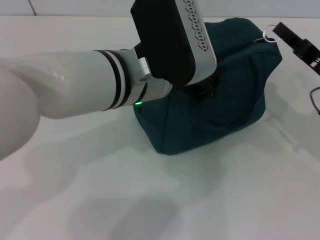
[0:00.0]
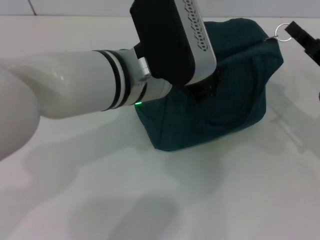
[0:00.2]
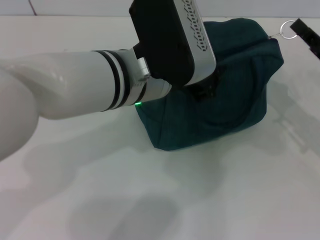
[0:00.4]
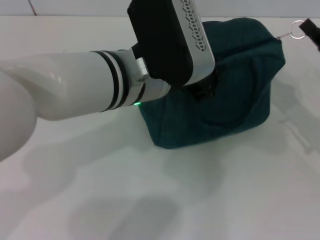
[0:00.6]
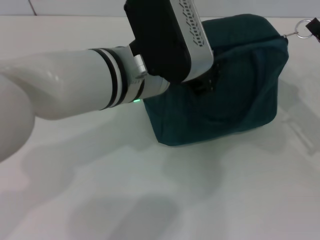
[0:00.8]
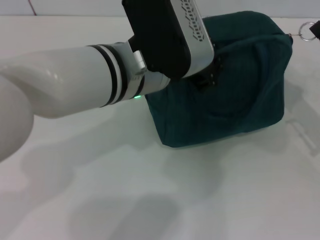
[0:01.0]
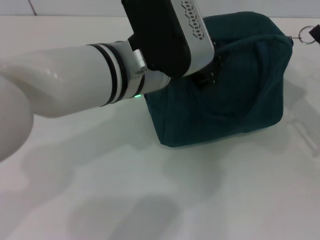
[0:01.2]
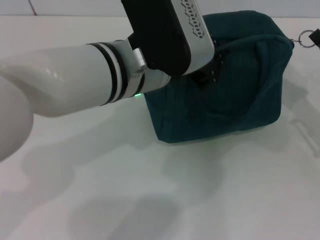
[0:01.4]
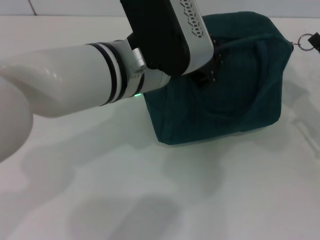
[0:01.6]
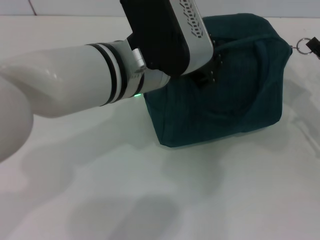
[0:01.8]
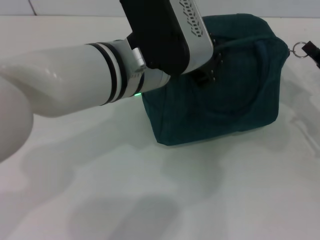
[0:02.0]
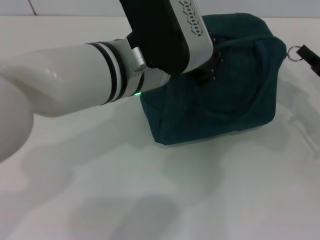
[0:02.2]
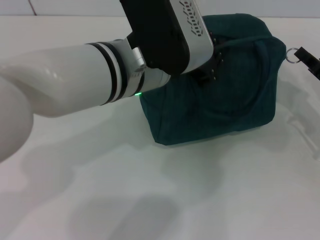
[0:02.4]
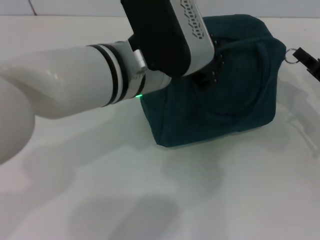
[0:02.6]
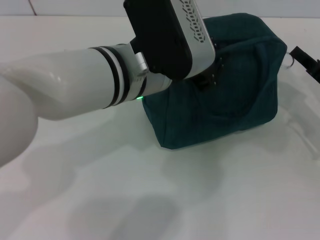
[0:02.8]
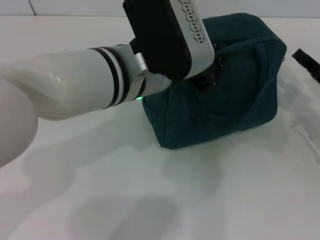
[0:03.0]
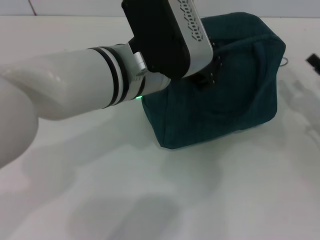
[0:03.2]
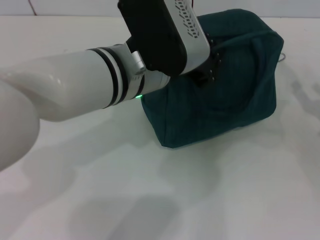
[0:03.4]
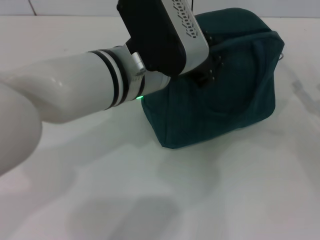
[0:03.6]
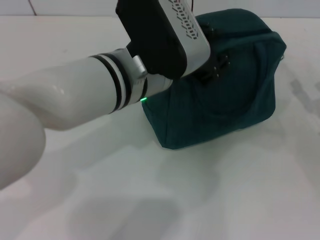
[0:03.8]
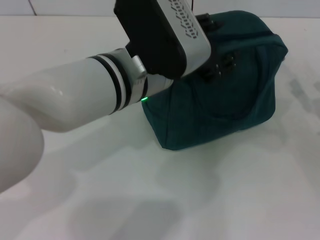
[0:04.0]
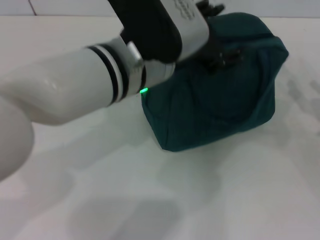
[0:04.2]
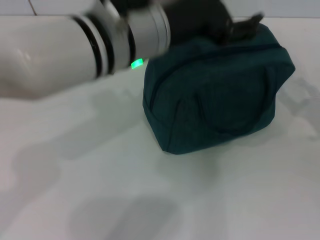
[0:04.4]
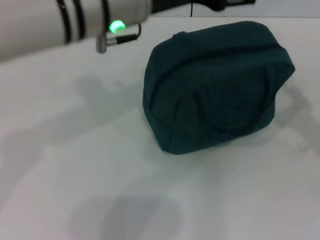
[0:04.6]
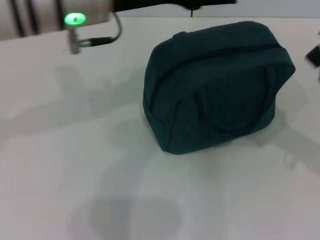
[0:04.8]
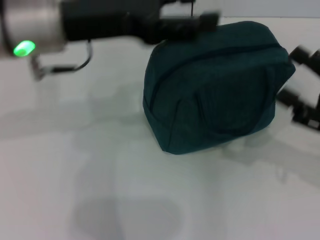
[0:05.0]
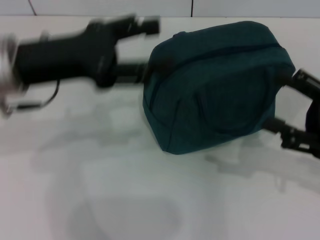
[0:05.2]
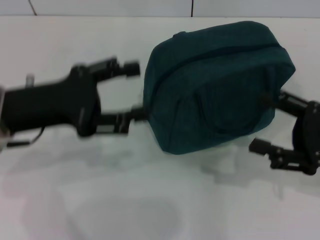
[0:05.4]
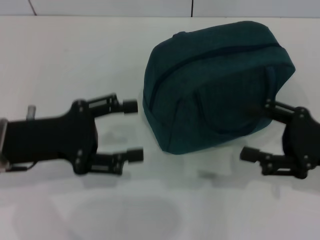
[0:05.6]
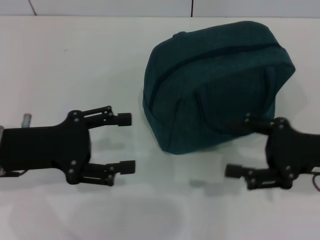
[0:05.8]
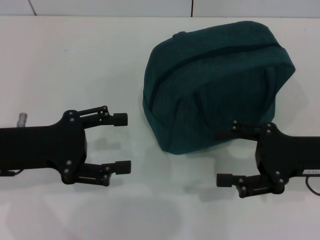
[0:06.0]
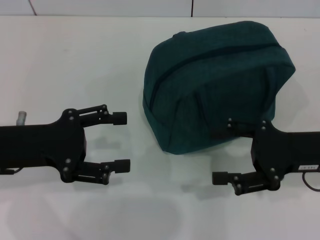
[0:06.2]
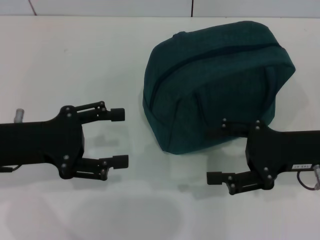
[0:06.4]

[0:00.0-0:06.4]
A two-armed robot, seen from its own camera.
Step, 0:00.0 to 0:02.8: Zip up the lunch bag with your right hand.
Step, 0:03.2 to 0:03.8: Hold the lunch bag with your left hand.
0:00.0 to 0:01.6: The grippers stay close to where they were, moving slightly.
0:01.6 to 0:03.2: The right gripper opens its fingers.
0:03.2 to 0:04.8: The right gripper heads upward, covering some 5 cm, and opens its fingers, while the left gripper goes about 10 cm to the left and upward, and opens.
0:04.8 to 0:06.4: The right gripper is displaced to the left by roughly 5 cm, while the left gripper shifts some 20 cm to the left, downward and backward.
